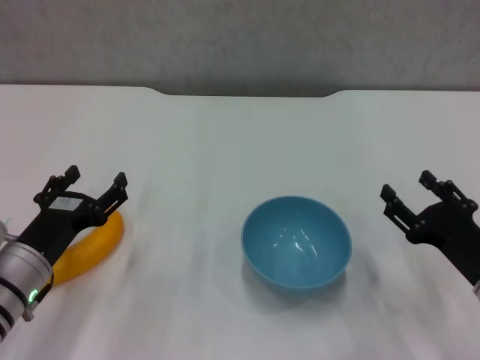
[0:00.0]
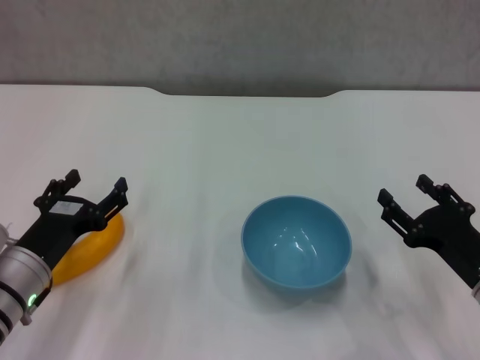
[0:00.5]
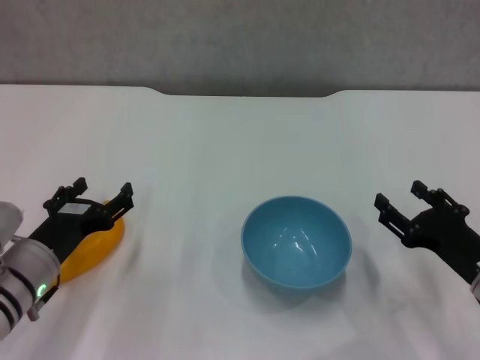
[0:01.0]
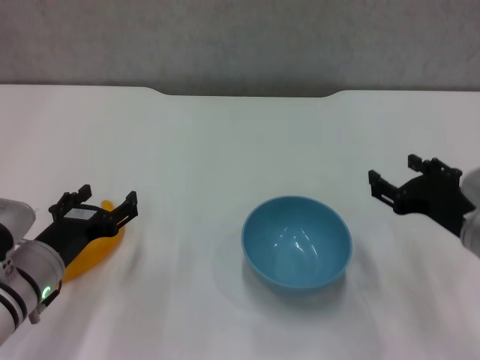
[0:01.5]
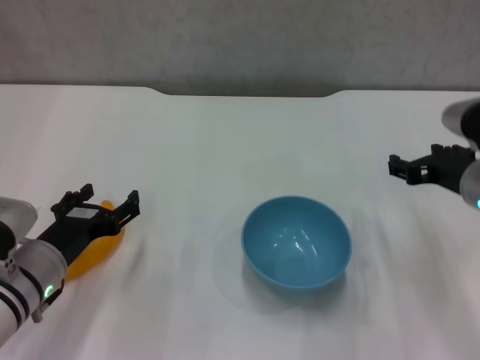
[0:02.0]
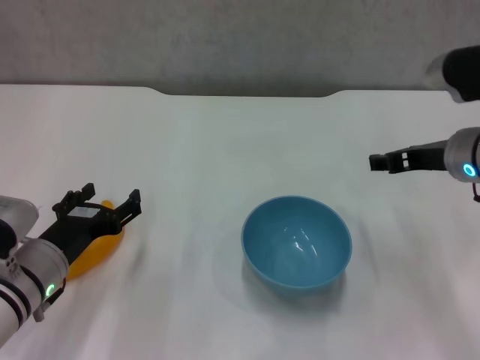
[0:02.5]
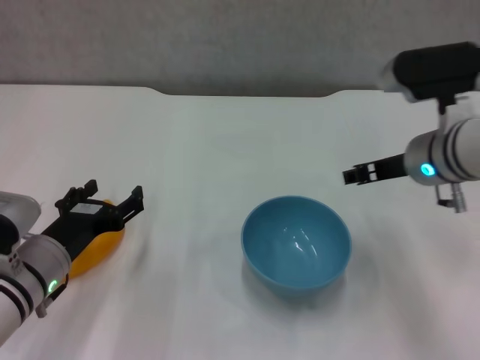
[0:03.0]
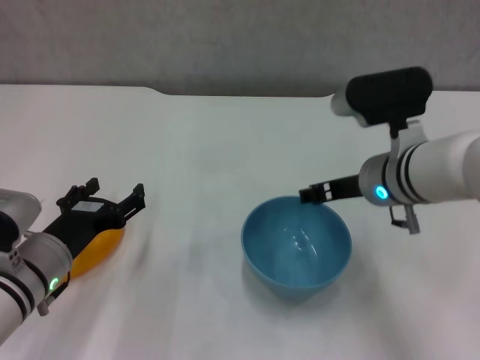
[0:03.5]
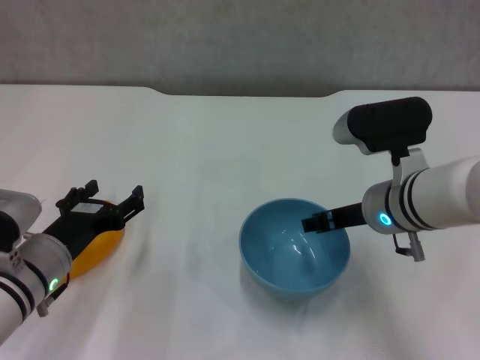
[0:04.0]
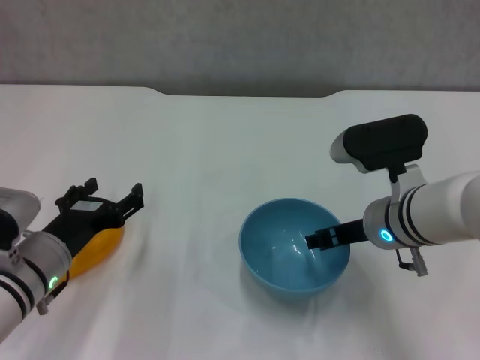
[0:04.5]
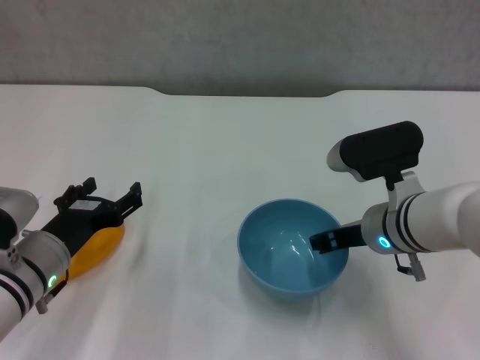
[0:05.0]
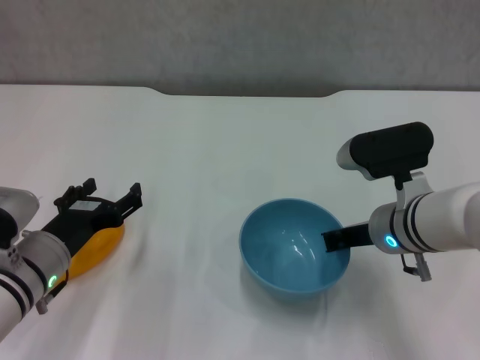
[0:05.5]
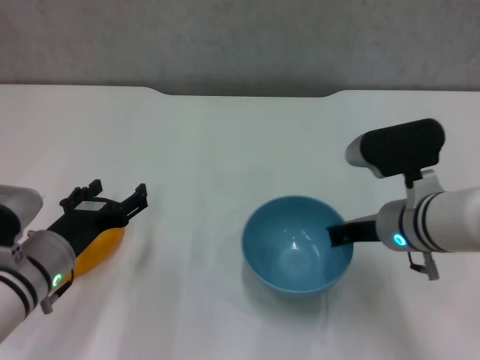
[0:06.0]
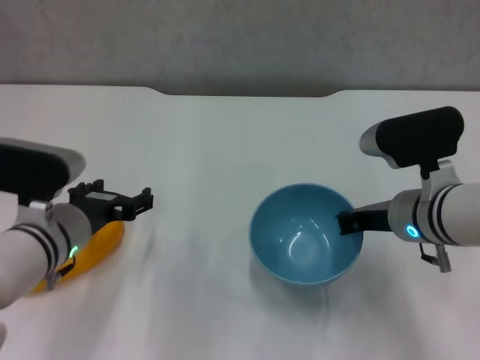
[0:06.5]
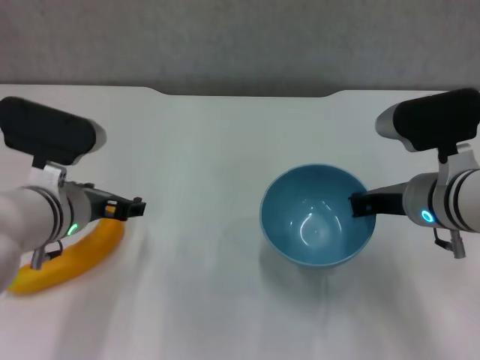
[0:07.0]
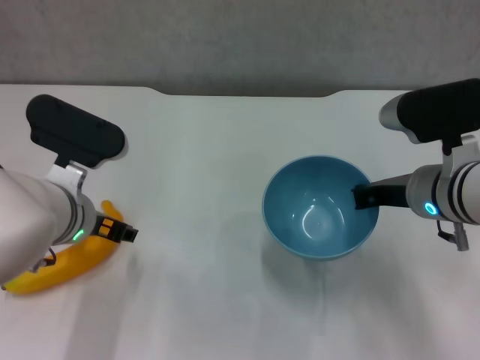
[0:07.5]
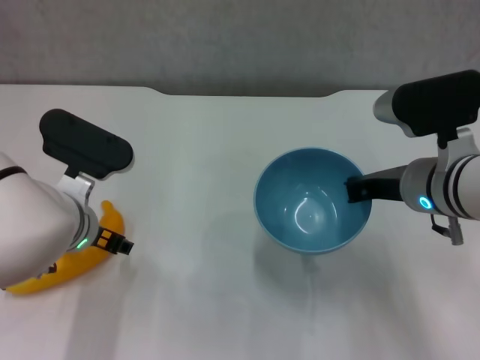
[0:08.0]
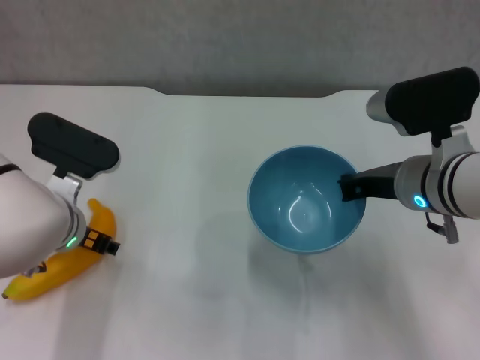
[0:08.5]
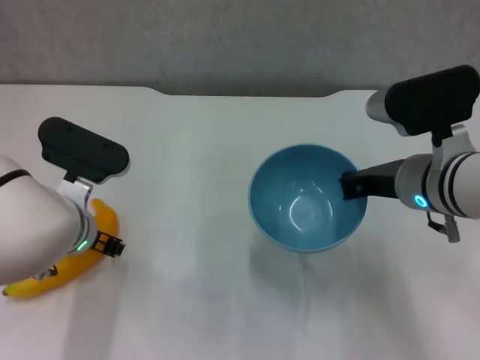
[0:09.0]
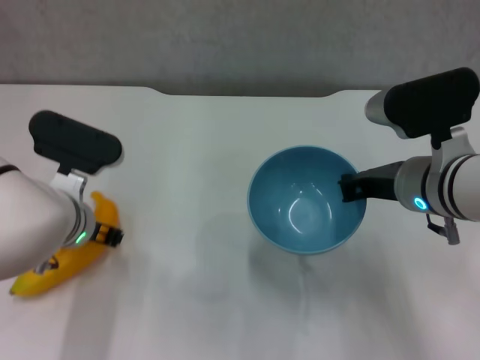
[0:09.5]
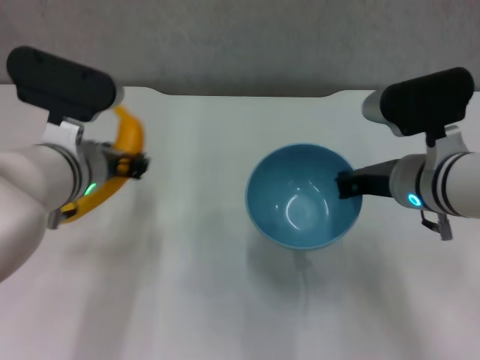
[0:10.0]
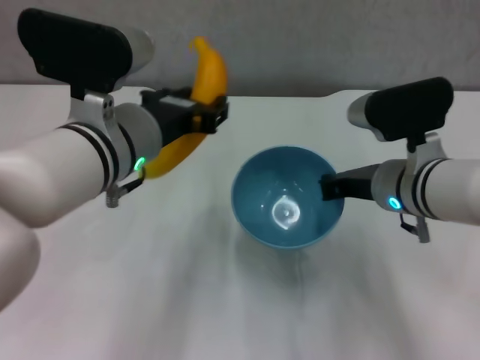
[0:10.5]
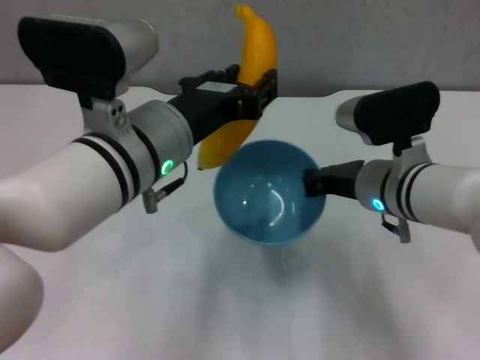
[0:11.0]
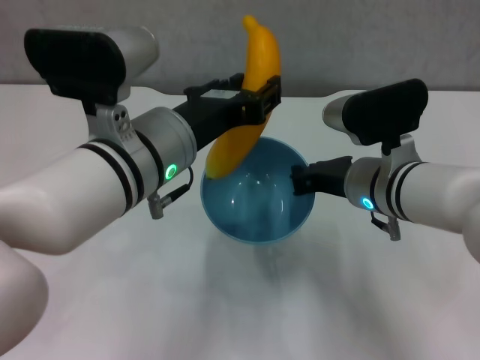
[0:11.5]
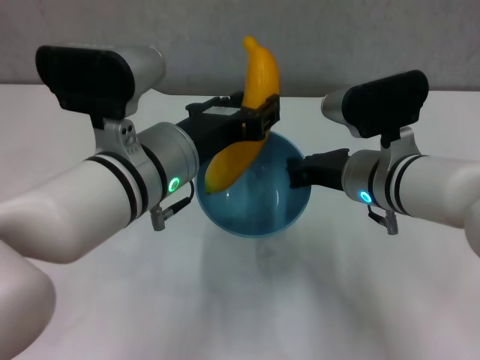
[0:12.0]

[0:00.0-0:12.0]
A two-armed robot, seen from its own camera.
Step, 0:00.0 to 0:05.5: Grasp the blue bowl with right gripper.
Step, 0:06.0 to 0:06.5: Lift the blue bowl with right gripper.
Step, 0:07.5 to 0:09.0: Grasp the banana with left gripper.
0:00.0 to 0:02.0: The right gripper moves upward and forward, about 15 cm.
0:02.0 to 0:04.0: The right gripper shifts some 10 cm to the left.
0:04.0 to 0:06.0: The right gripper closes its fingers.
0:06.0 to 0:08.0: The left gripper travels upward by approximately 5 cm. The right gripper shifts by approximately 5 cm.
0:08.0 to 0:10.0: The left gripper moves upward, some 5 cm, and closes.
0:10.0 to 0:12.0: The left gripper goes roughly 5 cm to the right.

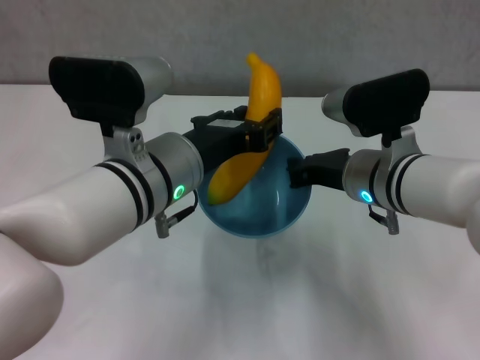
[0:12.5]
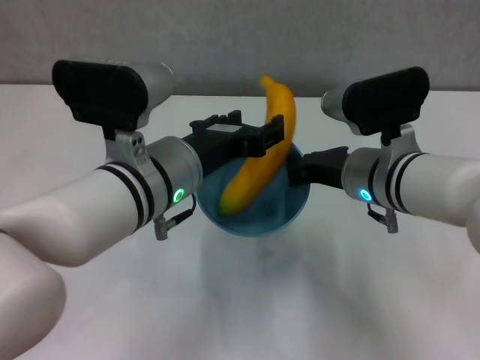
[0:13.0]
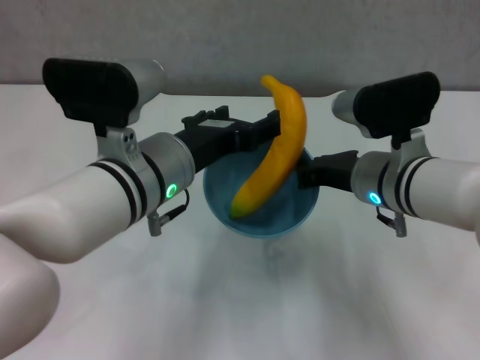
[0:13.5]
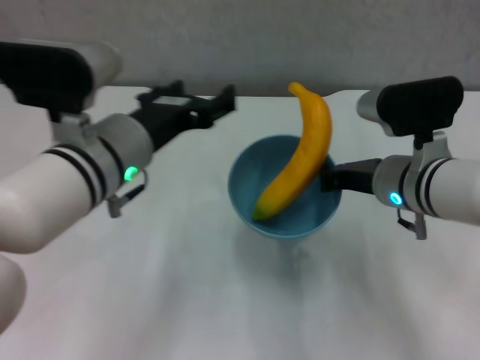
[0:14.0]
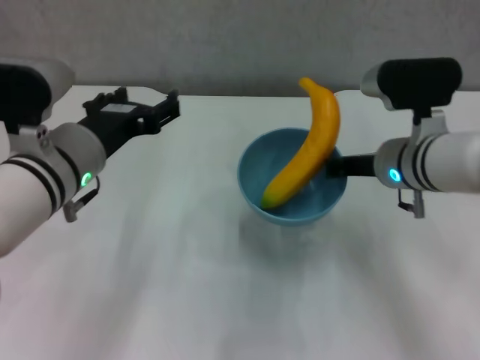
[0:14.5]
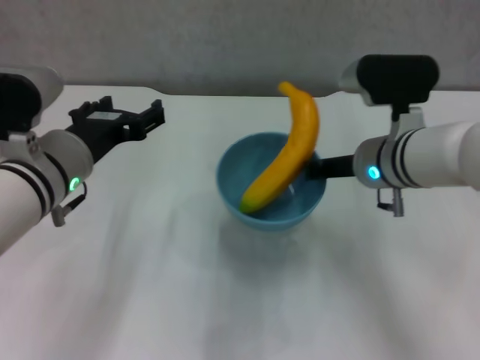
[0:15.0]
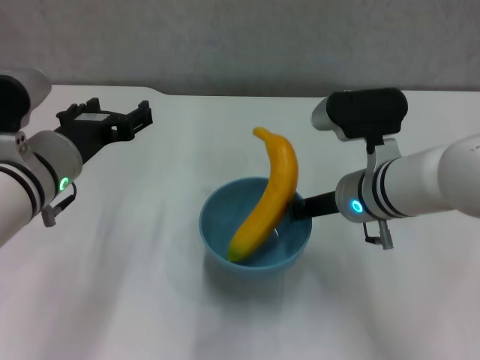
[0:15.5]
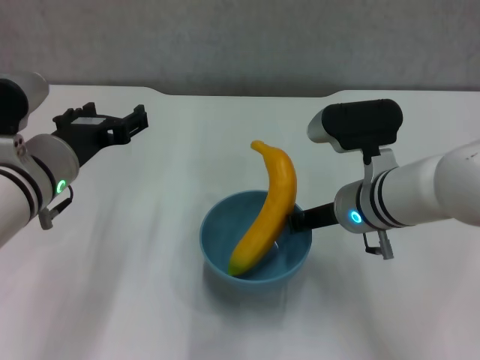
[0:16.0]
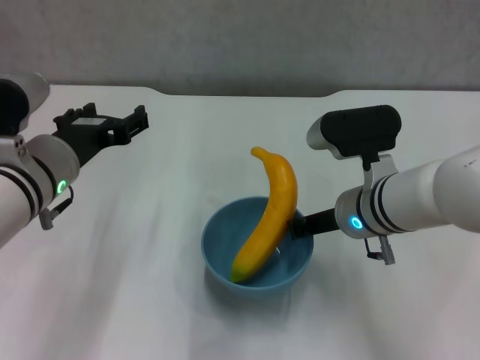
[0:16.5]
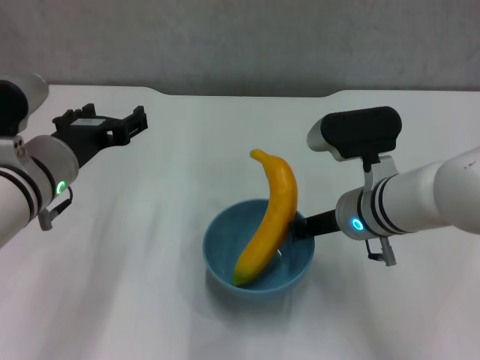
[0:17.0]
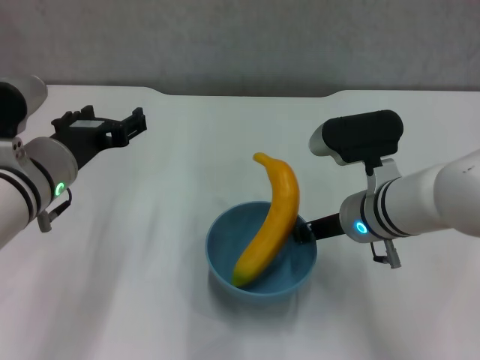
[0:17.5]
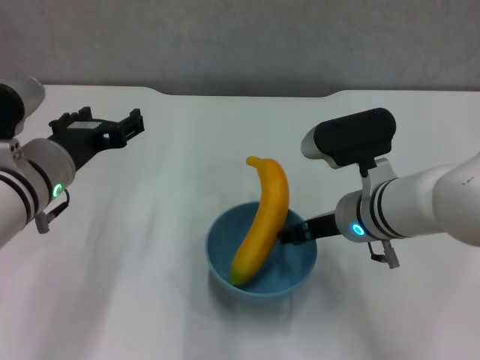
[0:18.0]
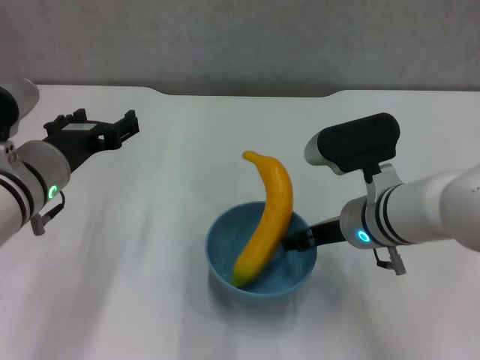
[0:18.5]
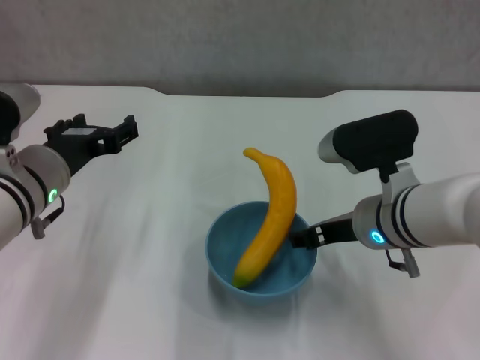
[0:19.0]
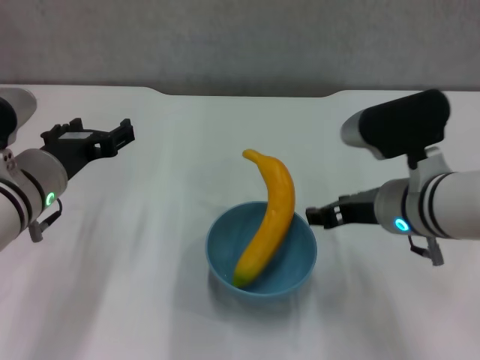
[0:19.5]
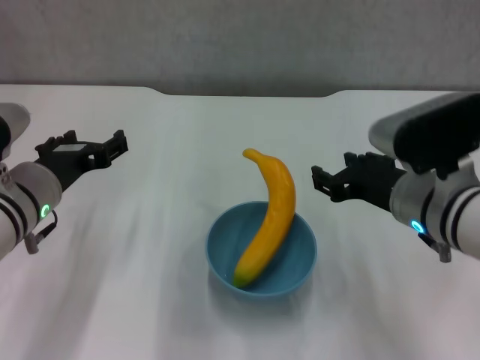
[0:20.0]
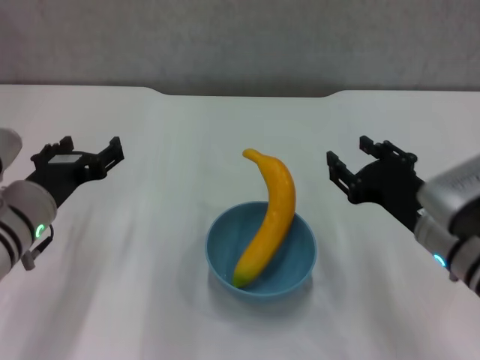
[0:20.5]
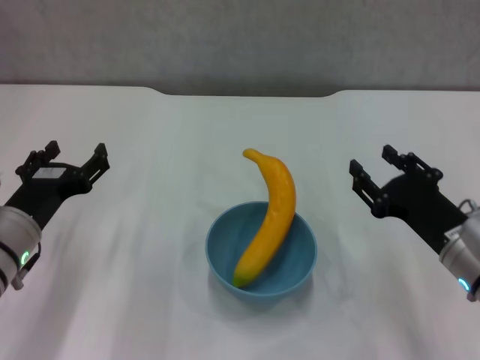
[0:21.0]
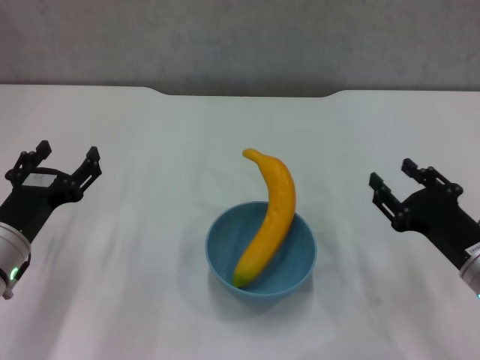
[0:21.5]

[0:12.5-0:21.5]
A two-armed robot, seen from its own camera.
Step, 0:13.5 to 0:18.5: Place the bowl on the table with right gripper.
0:12.5 to 0:14.5: The left gripper is displaced to the left by roughly 10 cm, and opens.
0:14.5 to 0:17.0: The right gripper moves about 5 cm.
0:17.0 to 0:19.5: The right gripper ends up approximately 5 cm from where it was, and opens.
0:19.5 to 0:21.5: The right gripper is displaced to the right, downward and backward by approximately 15 cm. The left gripper heads downward, covering about 10 cm.

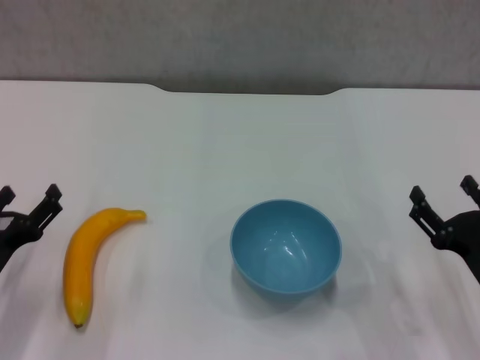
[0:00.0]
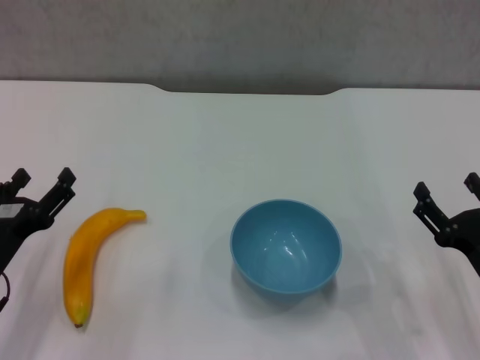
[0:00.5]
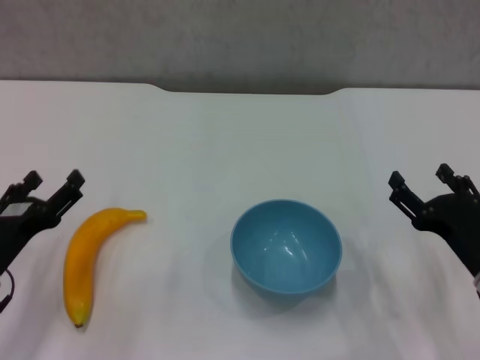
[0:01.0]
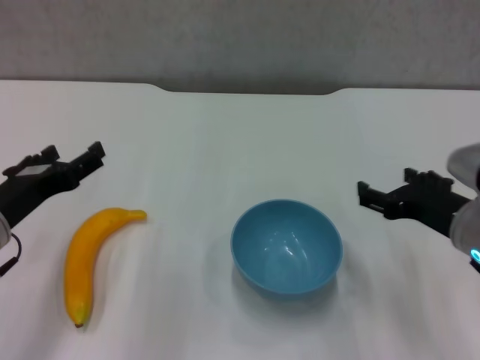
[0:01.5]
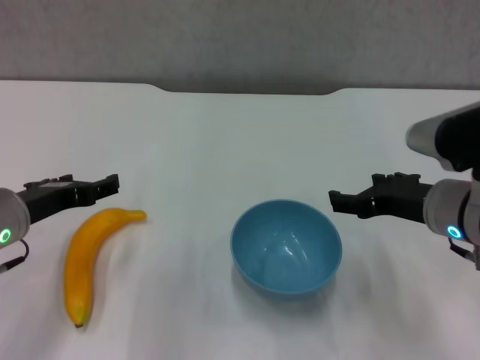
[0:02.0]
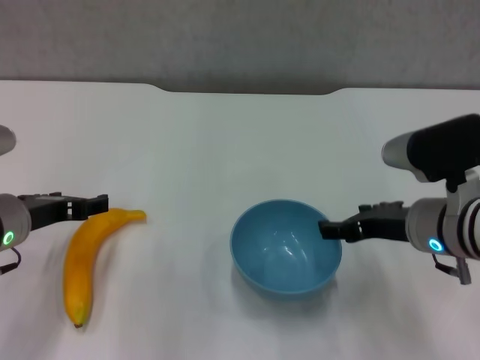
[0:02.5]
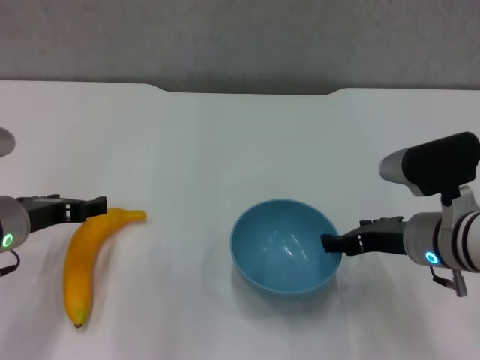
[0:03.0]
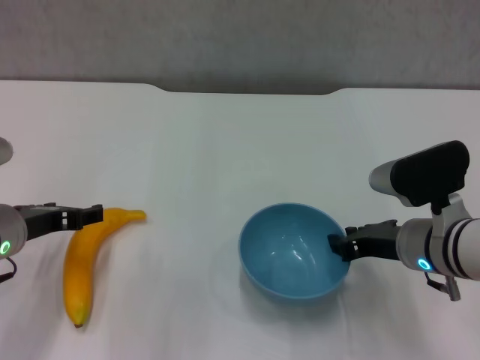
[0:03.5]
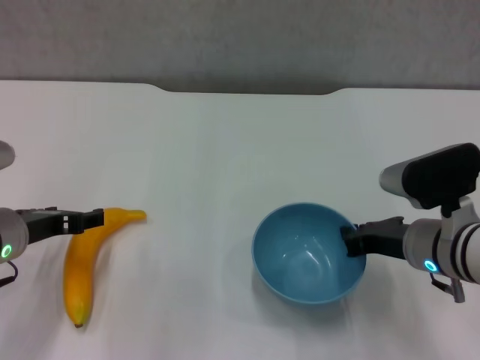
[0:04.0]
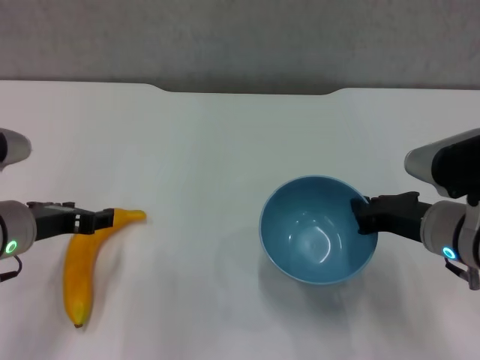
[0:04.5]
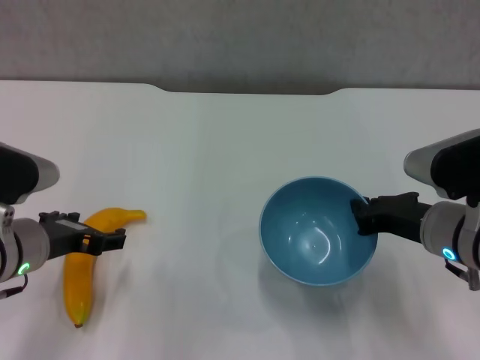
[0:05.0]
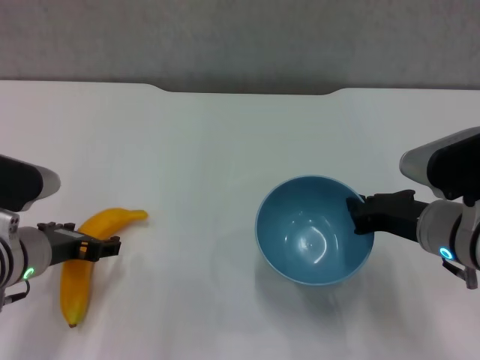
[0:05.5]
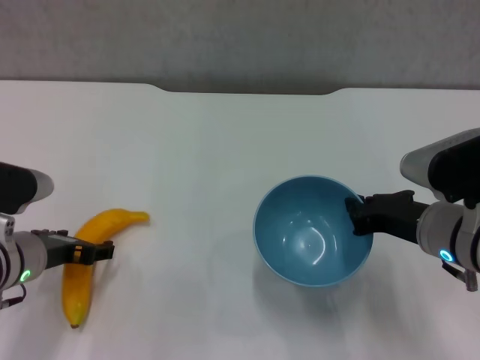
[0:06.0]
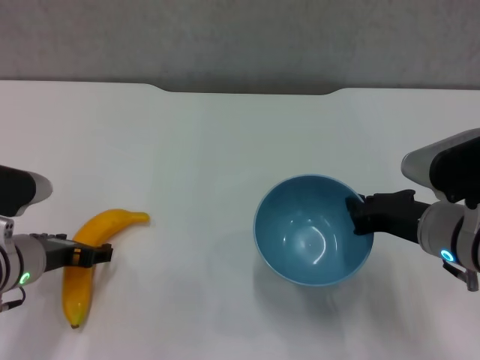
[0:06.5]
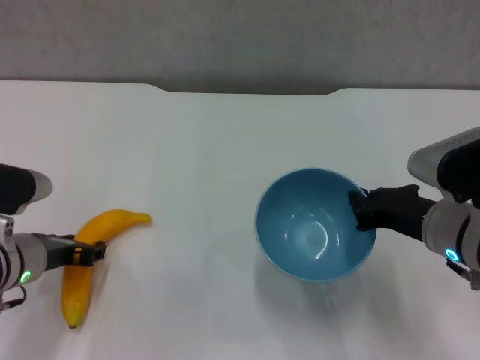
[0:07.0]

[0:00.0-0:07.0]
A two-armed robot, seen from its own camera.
Step, 0:00.0 to 0:03.5: Grasp the blue bowl with right gripper.
Step, 0:04.5 to 0:07.0: Grasp the banana with left gripper.
0:00.0 to 0:02.0: The left gripper moves upward and forward, approximately 10 cm; the right gripper moves upward, forward and to the left, approximately 15 cm.
0:02.0 to 0:03.5: The right gripper travels downward by roughly 5 cm.
0:03.5 to 0:05.0: The right gripper closes up.
0:05.0 to 0:07.0: The grippers make only small movements.
